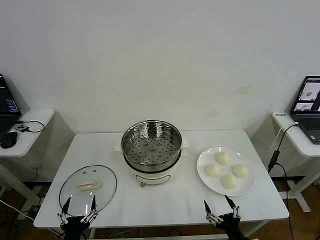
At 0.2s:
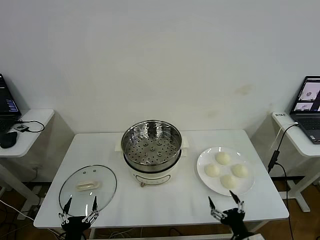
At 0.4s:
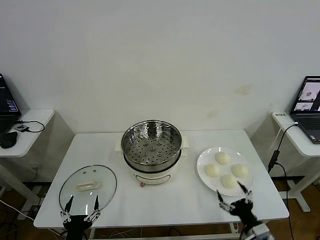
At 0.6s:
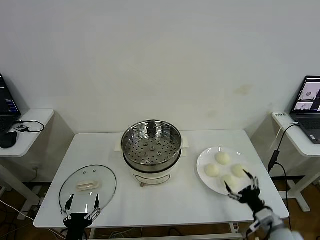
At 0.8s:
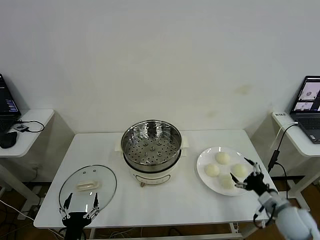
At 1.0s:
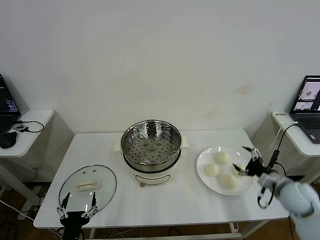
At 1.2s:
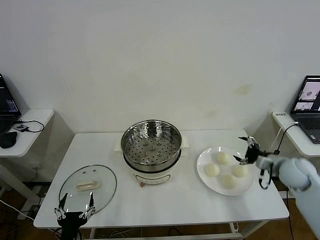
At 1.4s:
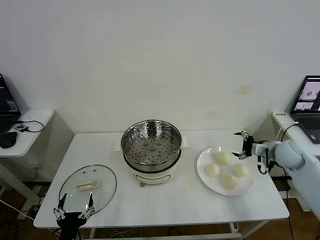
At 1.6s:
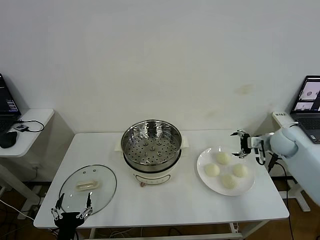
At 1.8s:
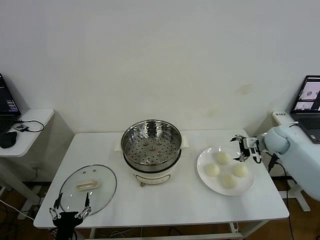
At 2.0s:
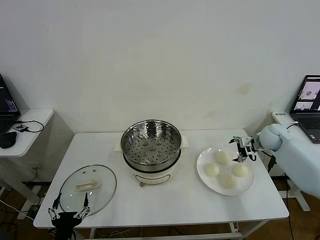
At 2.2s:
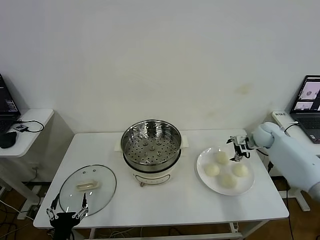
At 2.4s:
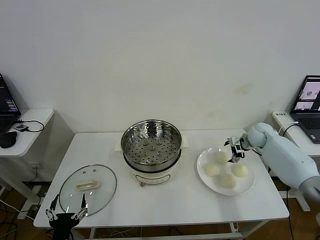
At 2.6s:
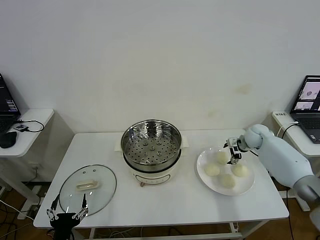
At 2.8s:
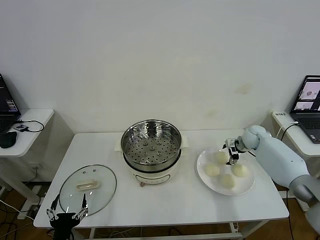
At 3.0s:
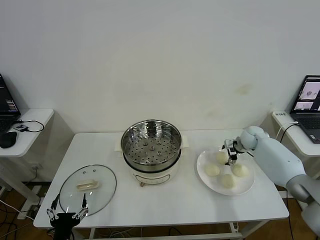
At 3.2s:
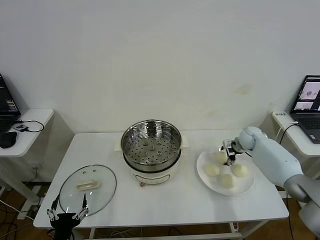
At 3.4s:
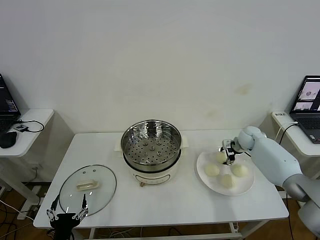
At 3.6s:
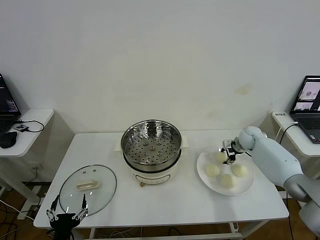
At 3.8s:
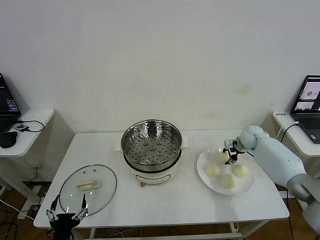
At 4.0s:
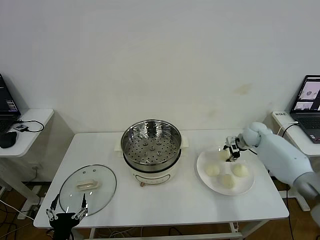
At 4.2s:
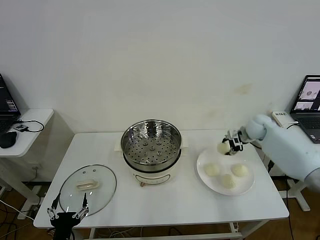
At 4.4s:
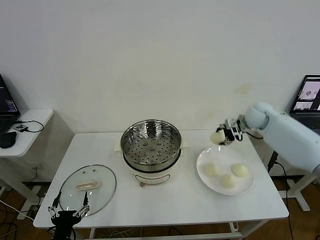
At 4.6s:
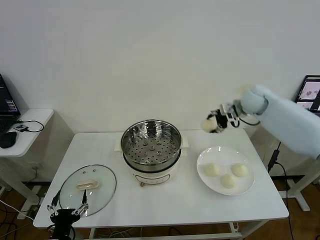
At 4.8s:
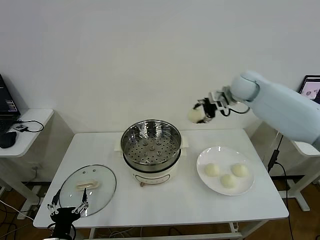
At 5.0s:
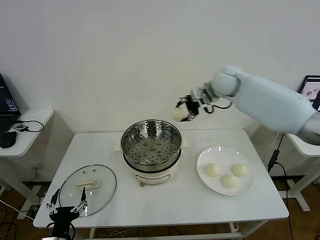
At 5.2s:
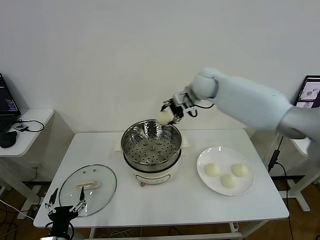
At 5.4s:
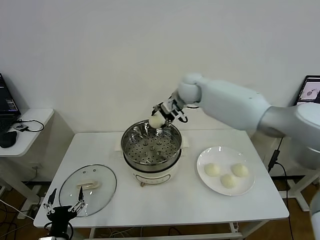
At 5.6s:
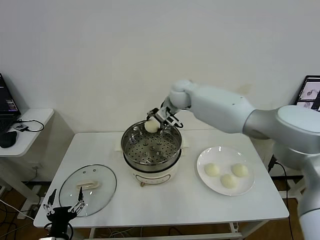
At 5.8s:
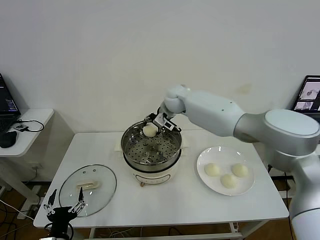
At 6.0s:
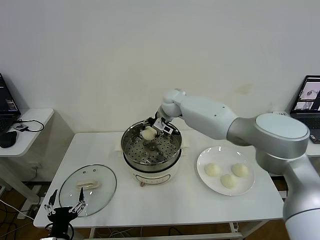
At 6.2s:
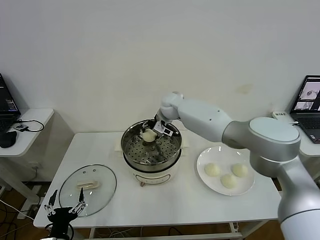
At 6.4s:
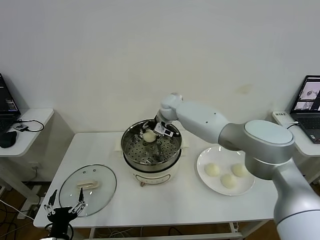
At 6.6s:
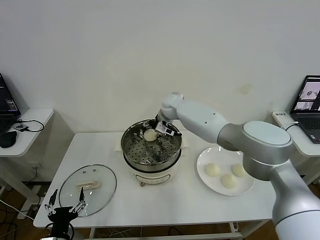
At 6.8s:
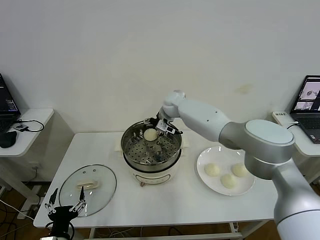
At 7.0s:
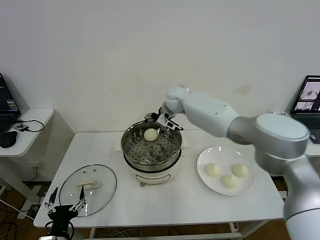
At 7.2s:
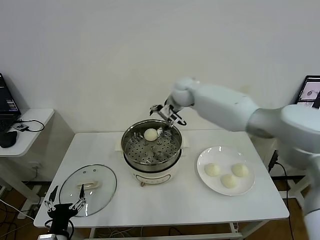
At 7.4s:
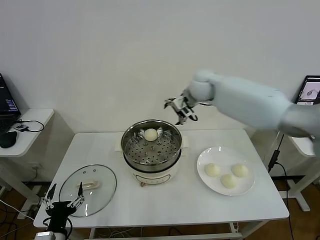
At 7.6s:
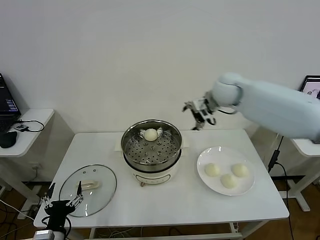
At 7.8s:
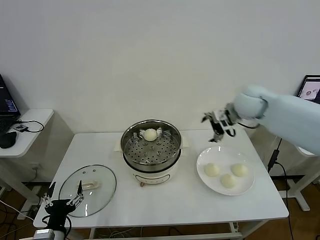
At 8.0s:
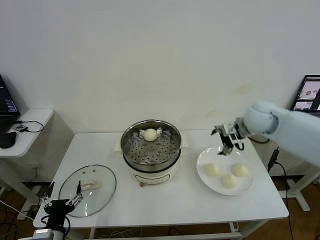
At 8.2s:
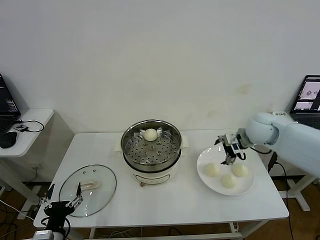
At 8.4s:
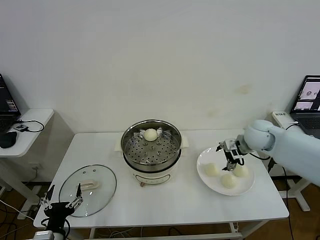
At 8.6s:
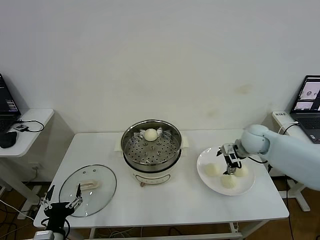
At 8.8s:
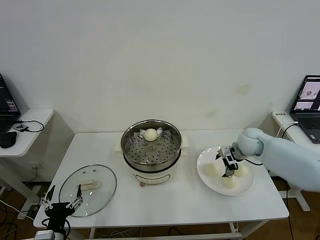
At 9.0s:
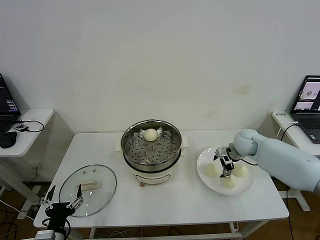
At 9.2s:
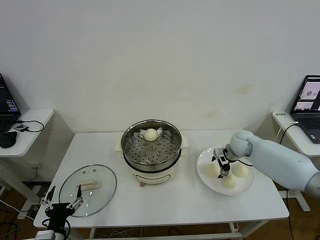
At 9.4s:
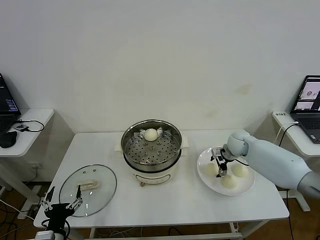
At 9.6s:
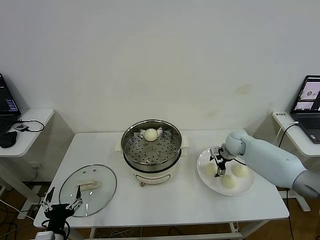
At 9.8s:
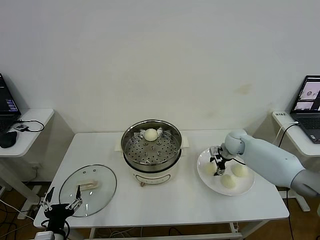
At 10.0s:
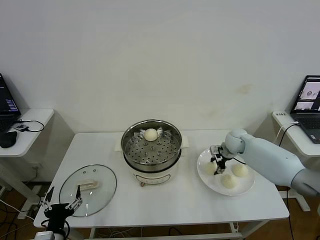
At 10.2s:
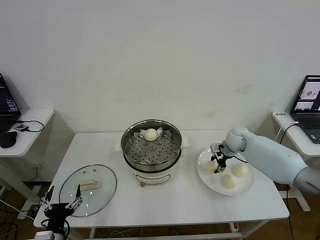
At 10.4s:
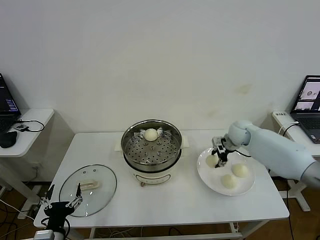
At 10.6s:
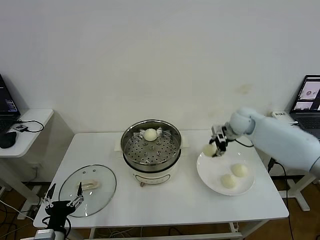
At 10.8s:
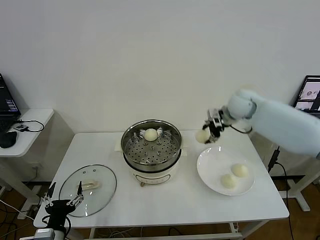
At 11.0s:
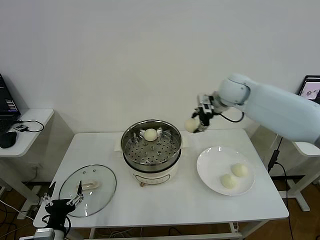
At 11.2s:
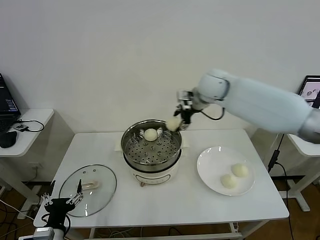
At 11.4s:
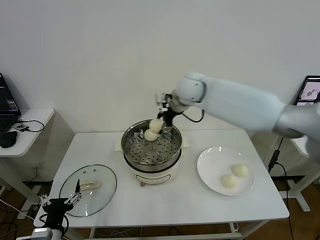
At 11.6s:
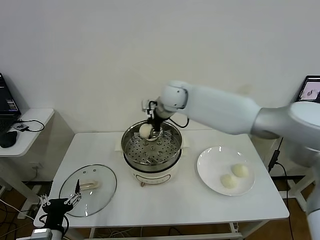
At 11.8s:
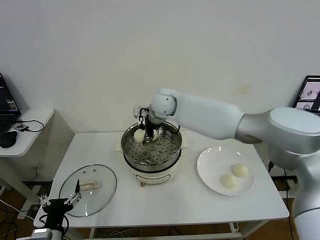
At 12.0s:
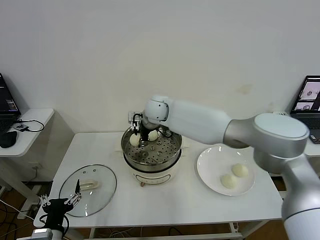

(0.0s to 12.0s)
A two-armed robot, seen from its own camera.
Step, 0.0s - 3.2s: Grasp the baozi in the plate with right gripper.
Step, 3.4s - 6.4s: Place the baozi on the steamer with right gripper.
Step, 6.6s - 9.8s: Grasp the baozi in the plate with right gripper.
1.6s - 3.0s: The right gripper shifts roughly 10 cm forward and downward.
3.0s - 4.4s: The right gripper heads upward, covering roughly 15 cm, and closes its fingers.
4.4s - 6.0s: The right gripper moves to the left, roughly 30 cm.
6.0s - 7.6s: The right gripper heads to the right, upward and backward, covering some 25 cm, and opens.
7.6s - 9.0s: The right gripper heads downward, covering approximately 20 cm.
9.0s - 10.4s: The right gripper moves upward, roughly 5 cm, and closes its fingers.
10.4s - 12.0s: The right gripper shifts roughly 35 cm to the left.

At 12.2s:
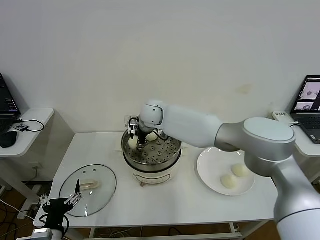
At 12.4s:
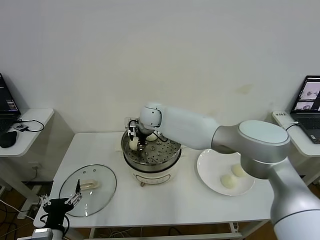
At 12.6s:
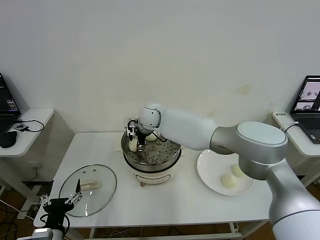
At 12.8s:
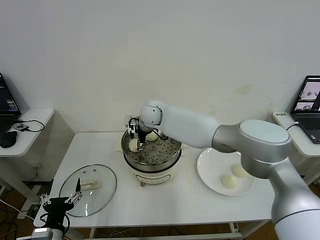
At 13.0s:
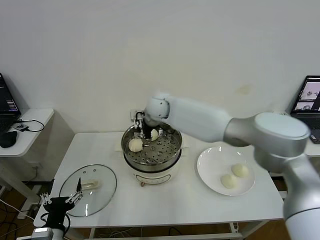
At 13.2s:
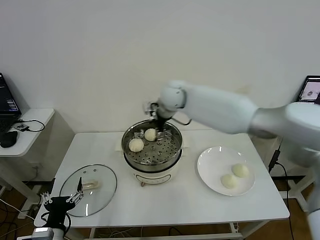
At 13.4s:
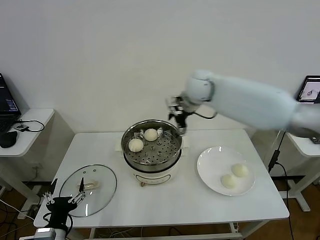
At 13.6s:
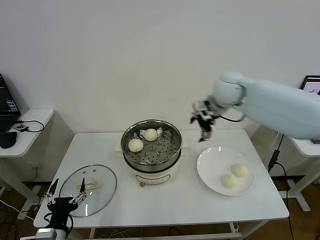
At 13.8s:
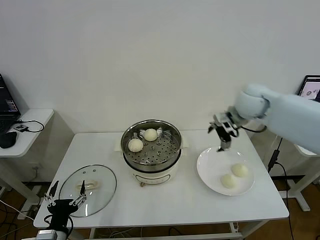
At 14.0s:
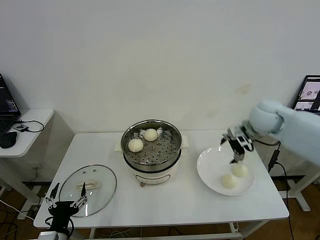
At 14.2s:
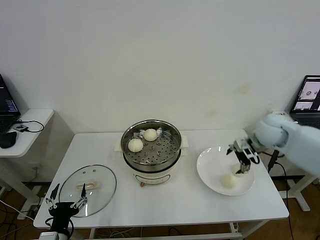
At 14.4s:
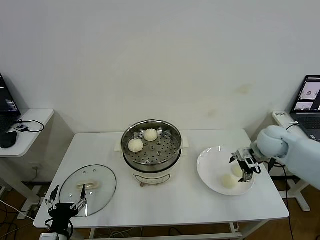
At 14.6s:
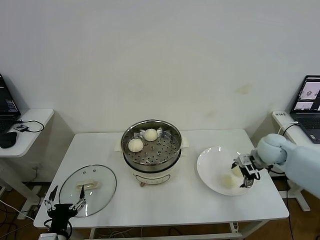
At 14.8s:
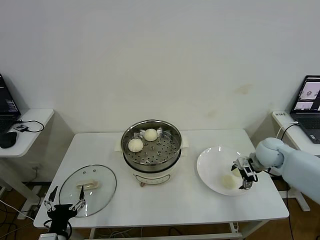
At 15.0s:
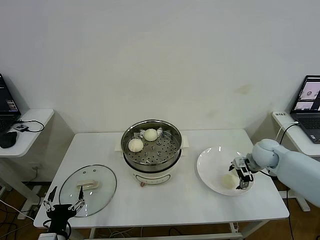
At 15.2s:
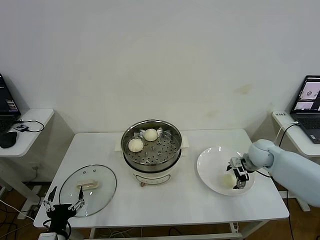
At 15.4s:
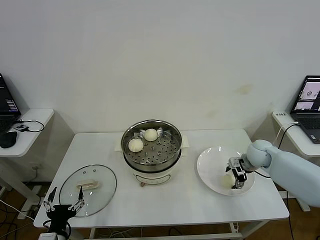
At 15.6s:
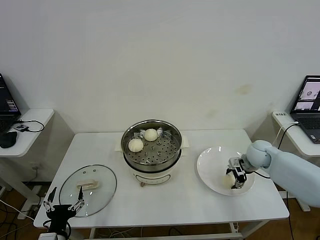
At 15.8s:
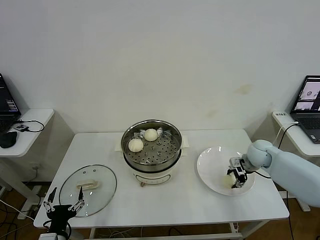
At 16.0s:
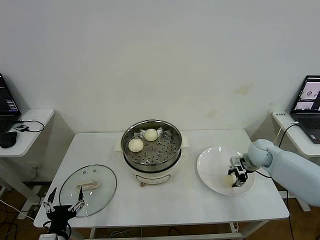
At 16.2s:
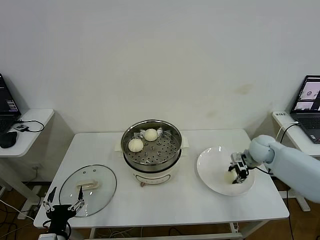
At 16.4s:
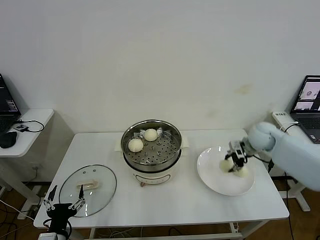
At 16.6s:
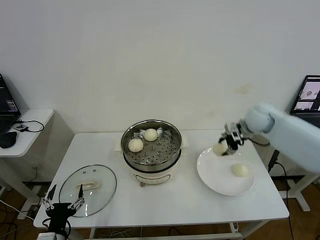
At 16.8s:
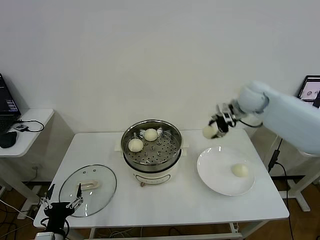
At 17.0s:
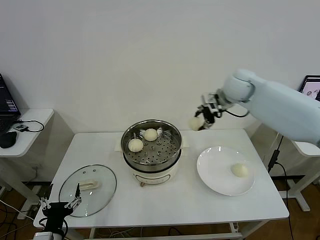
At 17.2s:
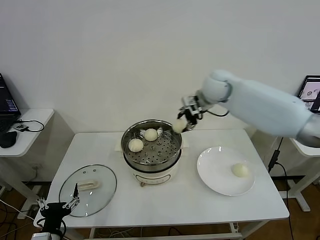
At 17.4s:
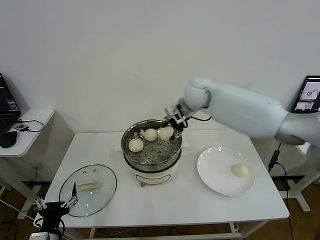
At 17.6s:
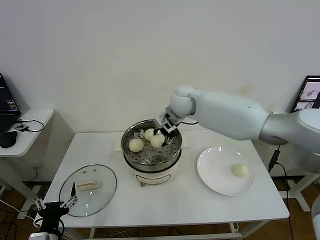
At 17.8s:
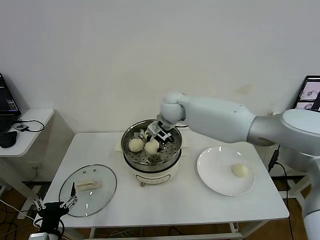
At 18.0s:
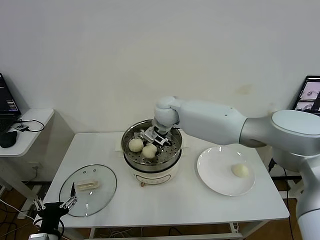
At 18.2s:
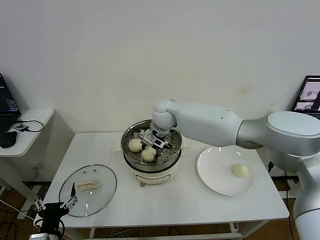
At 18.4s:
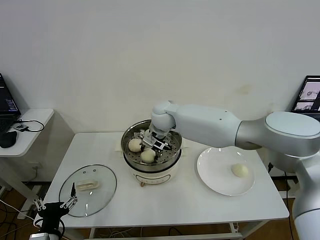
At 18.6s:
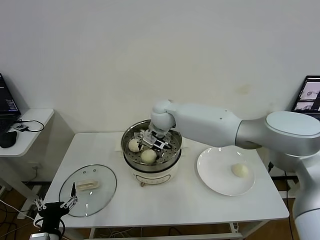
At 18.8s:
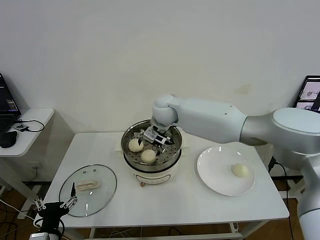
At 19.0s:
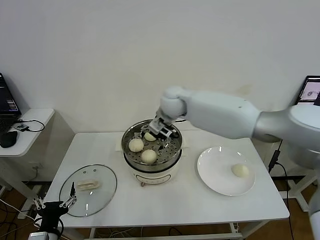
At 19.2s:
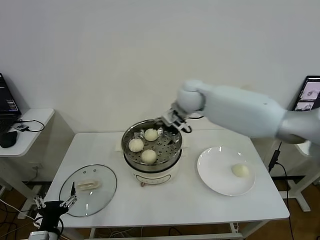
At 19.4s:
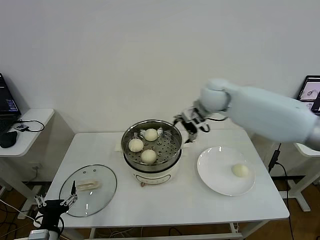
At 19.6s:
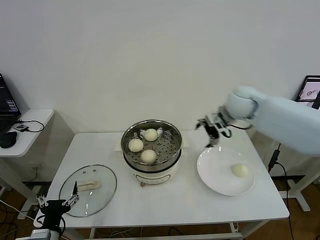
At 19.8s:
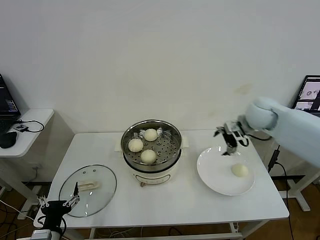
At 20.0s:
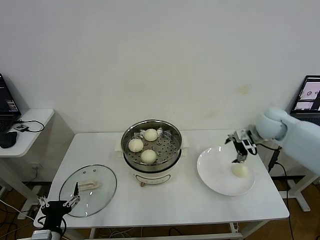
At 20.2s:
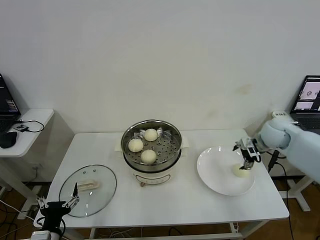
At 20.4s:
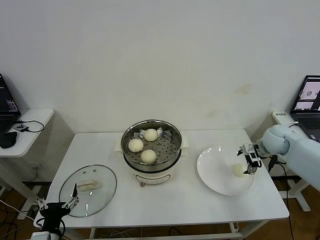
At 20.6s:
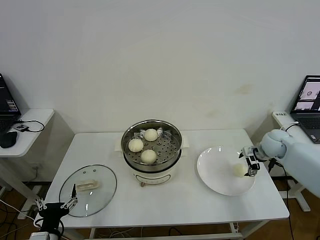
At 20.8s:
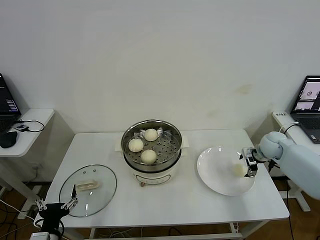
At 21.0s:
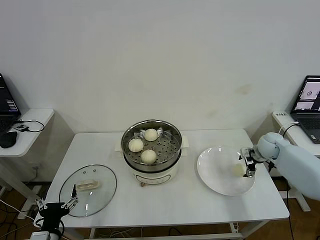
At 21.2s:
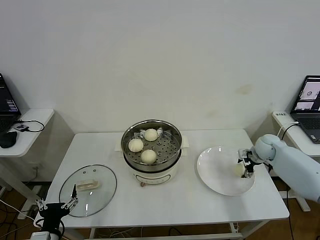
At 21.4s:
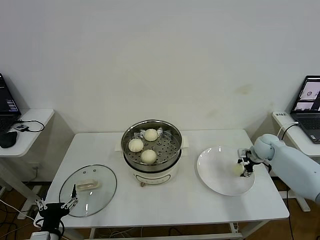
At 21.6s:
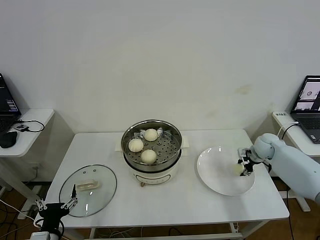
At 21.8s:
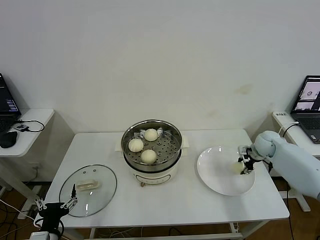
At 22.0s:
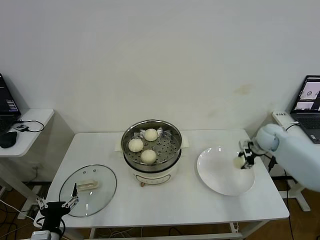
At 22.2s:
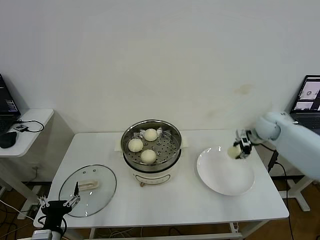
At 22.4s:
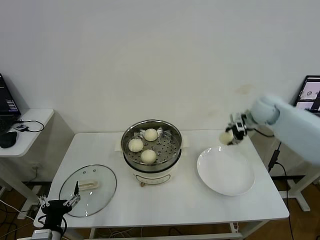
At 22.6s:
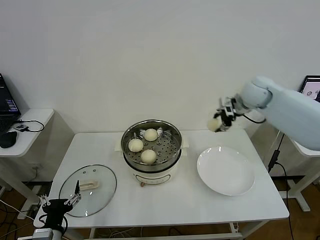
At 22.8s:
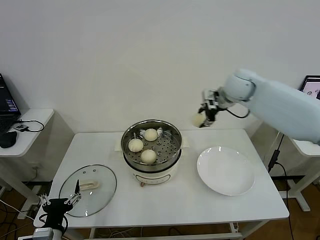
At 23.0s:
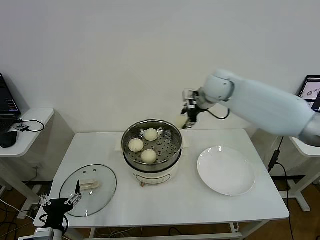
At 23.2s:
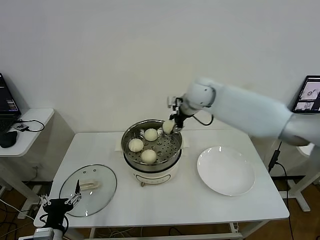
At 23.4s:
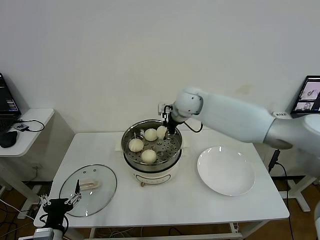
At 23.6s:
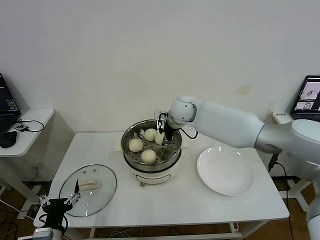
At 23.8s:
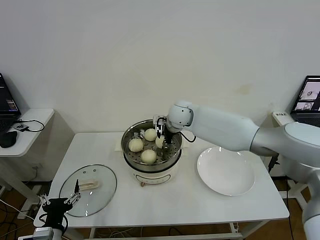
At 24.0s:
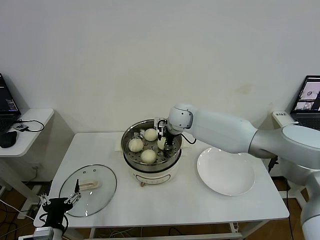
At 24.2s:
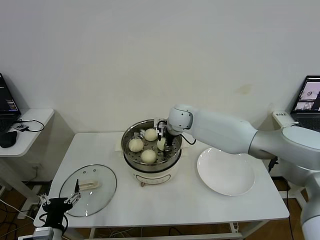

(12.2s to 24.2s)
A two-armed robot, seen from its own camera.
Step, 12.8s - 15.8s: Grasp the baozi in the plate with right gripper.
Step, 16.0s - 18.4s: Place the baozi on the steamer with right gripper.
Step, 18.8s - 21.2s: Grasp the baozi in the plate with right gripper.
12.2s - 13.8s: The right gripper heads to the right, covering roughly 30 cm, and opens its fingers.
13.8s - 15.2s: The right gripper travels downward and to the right by some 20 cm.
15.2s - 16.6s: The right gripper is displaced upward by roughly 15 cm, and closes up.
16.6s - 18.2s: The right gripper travels to the left by about 30 cm.
18.2s - 19.8s: The right gripper travels to the right by roughly 30 cm, and opens its fingers.
19.8s - 21.2s: The right gripper is displaced downward and to the right by roughly 20 cm, and closes up.
21.2s - 22.6s: The right gripper heads upward and to the left, covering some 25 cm, and closes.
22.6s - 24.2s: The right gripper goes some 25 cm to the left and downward.
